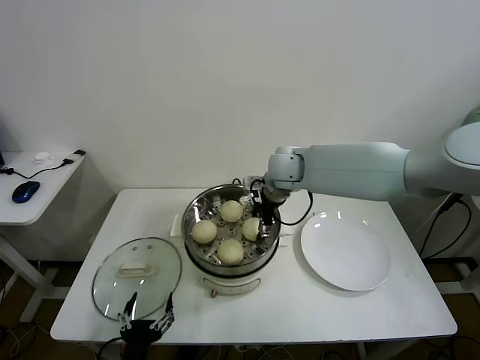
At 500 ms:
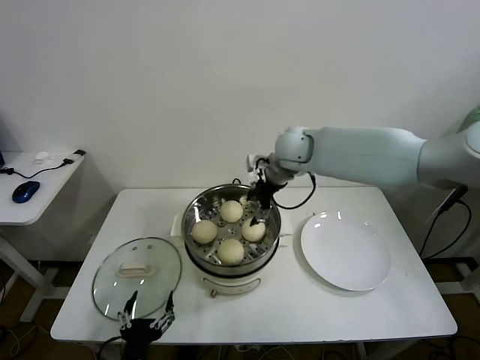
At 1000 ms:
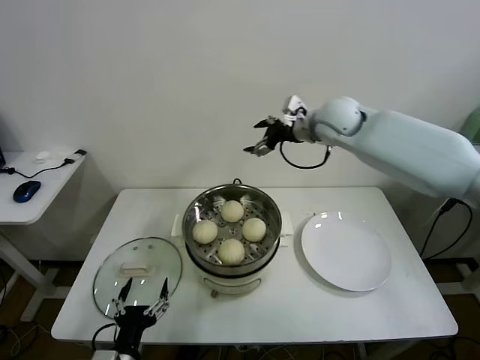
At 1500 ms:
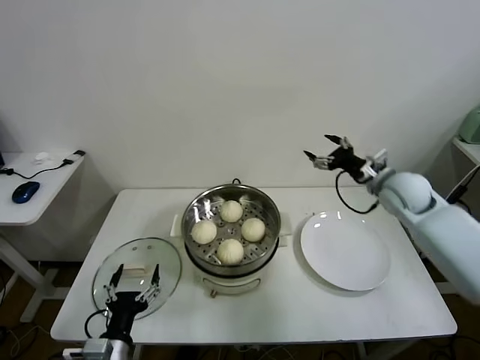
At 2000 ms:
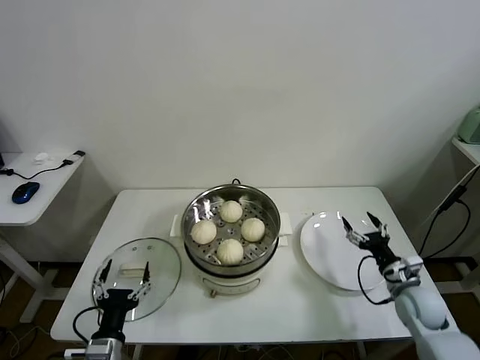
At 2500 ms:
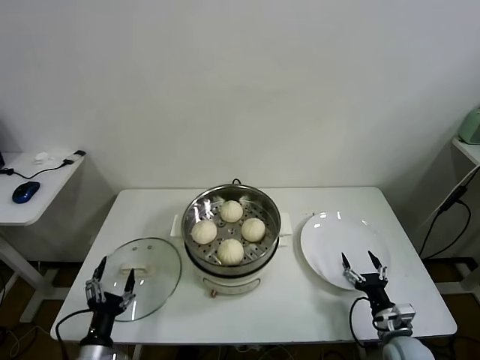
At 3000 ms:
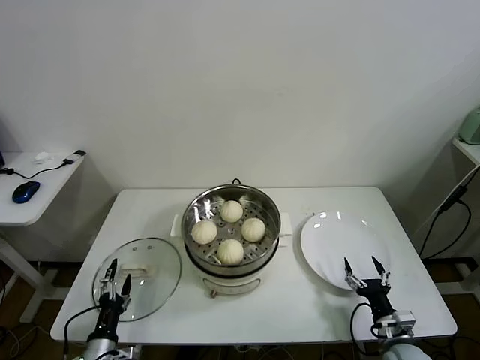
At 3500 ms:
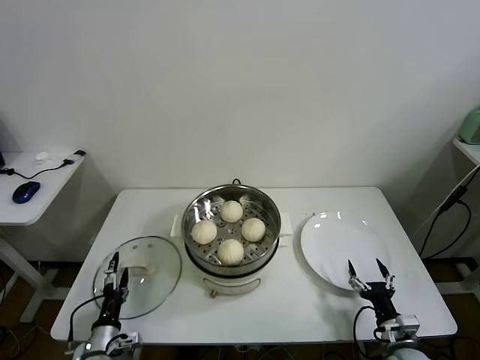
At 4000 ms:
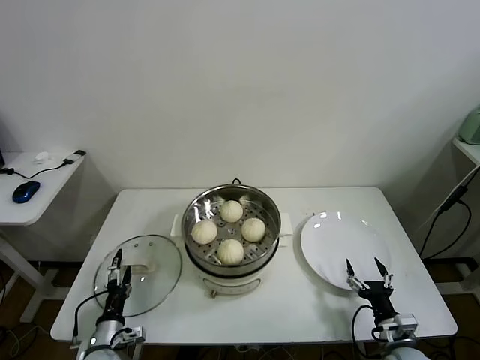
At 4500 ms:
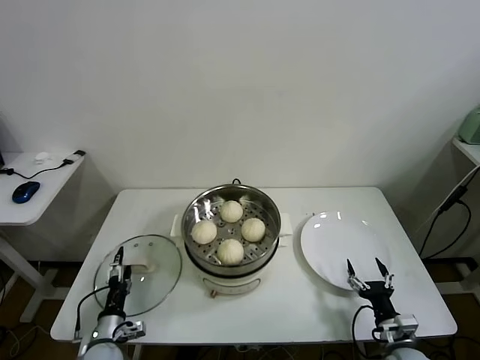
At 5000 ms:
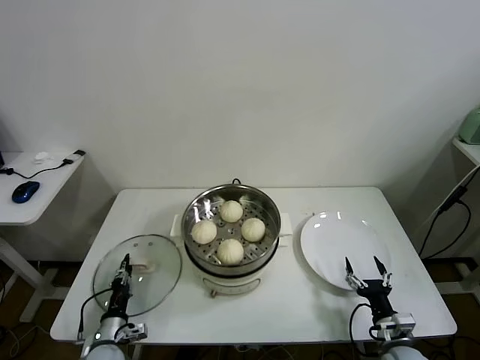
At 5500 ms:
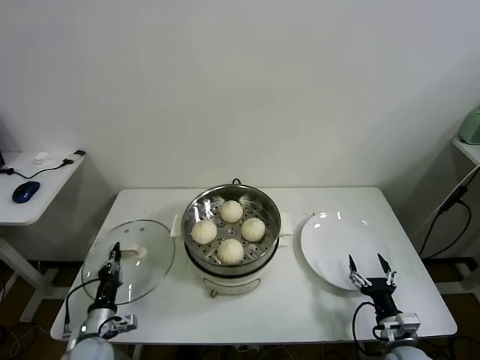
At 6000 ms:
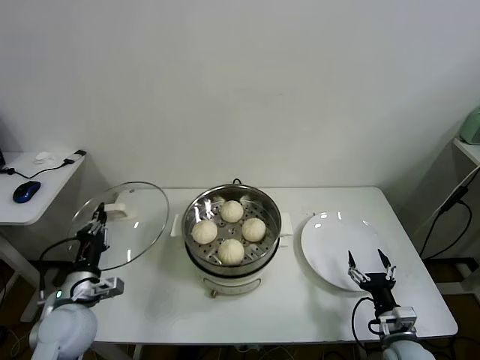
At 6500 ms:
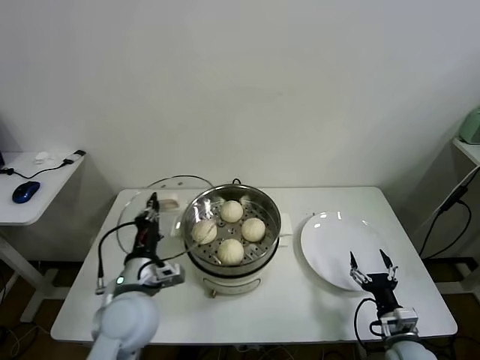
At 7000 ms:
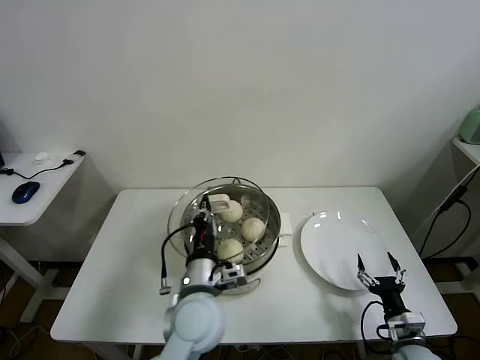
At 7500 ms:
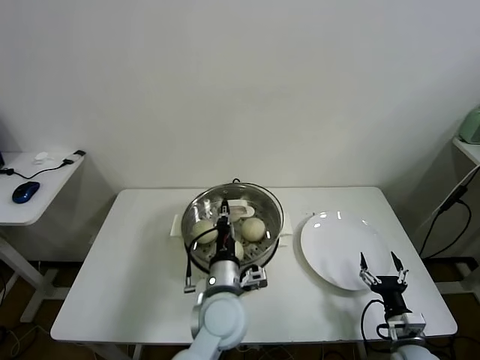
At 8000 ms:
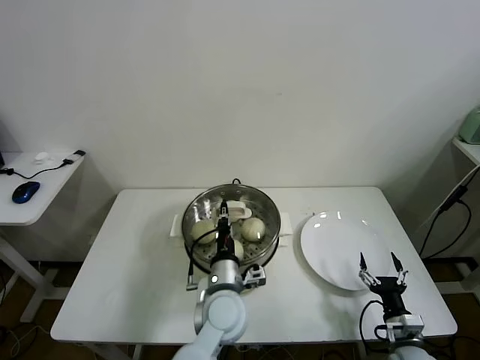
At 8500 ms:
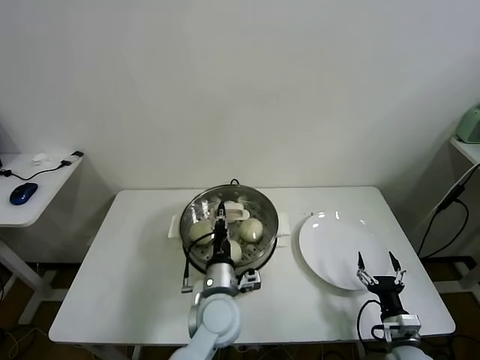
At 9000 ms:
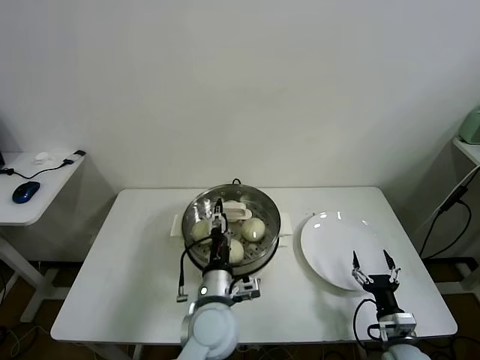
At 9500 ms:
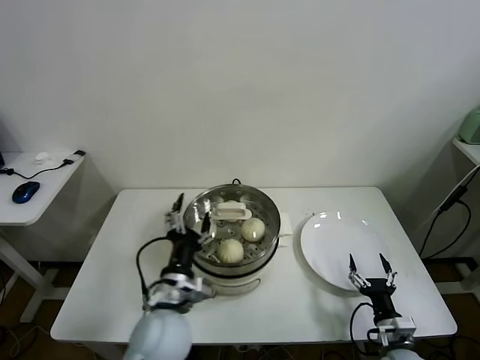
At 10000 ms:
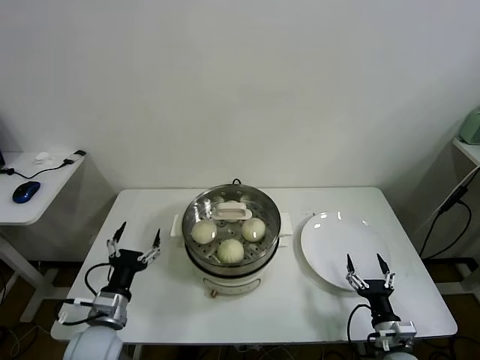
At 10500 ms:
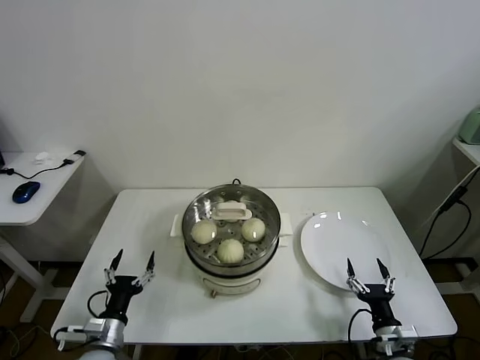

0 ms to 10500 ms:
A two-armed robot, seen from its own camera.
Task of the whole recording: take steamed baozi put them in steamer.
Step, 500 ms to 5000 ms: Grasp the pot lid with left gripper.
Step, 5500 ms to 9000 ms: Place the pot lid on the steamer with left gripper.
0 ms to 2000 ms: The right gripper shifts roughly 40 cm to the right, downward and backward, and opens its fingers. The left gripper goes approximately 5 cm to the left.
2000 ms to 4000 ms: The right gripper is displaced backward and downward by some 15 cm, while the left gripper goes roughly 15 cm downward, forward and to the left.
4000 ms to 6500 ms: The left gripper goes roughly 25 cm upward and to the right, and closes.
6500 ms to 8500 ms: The left gripper heads to the right, covering roughly 15 cm.
8500 ms to 10500 ms: The left gripper shifts some 25 cm to the left, and opens.

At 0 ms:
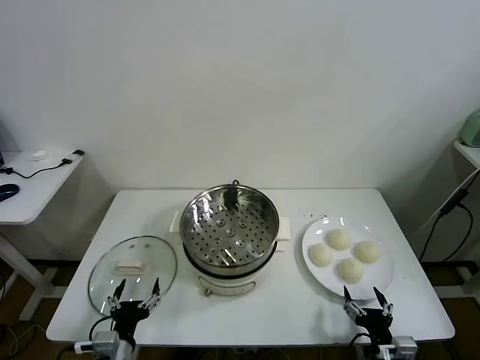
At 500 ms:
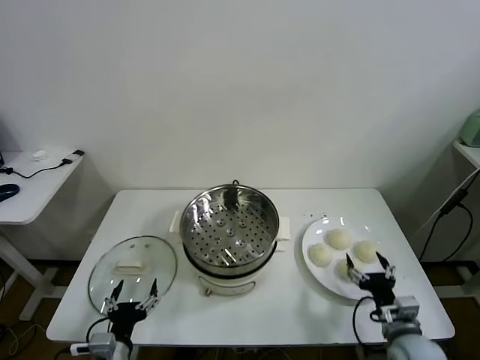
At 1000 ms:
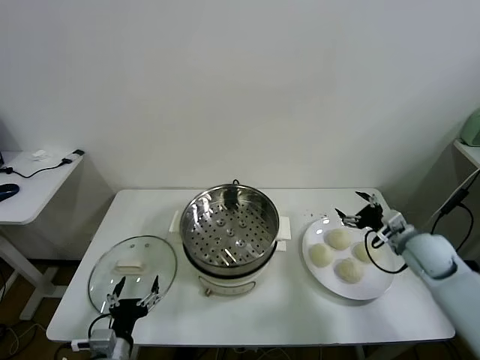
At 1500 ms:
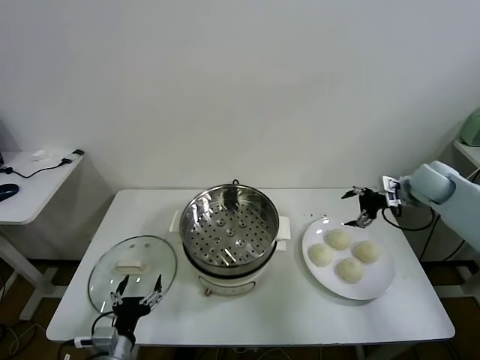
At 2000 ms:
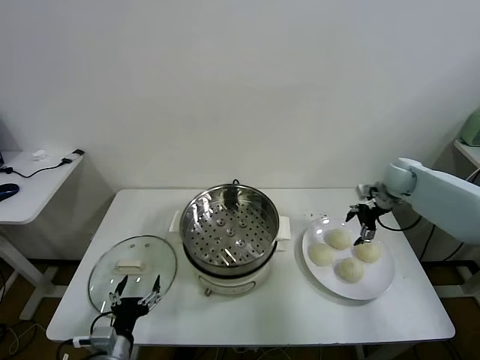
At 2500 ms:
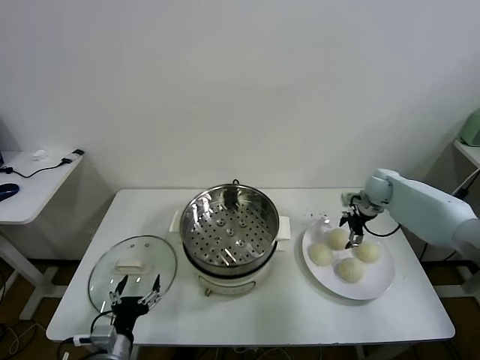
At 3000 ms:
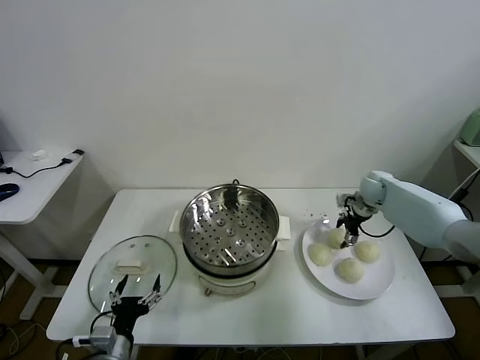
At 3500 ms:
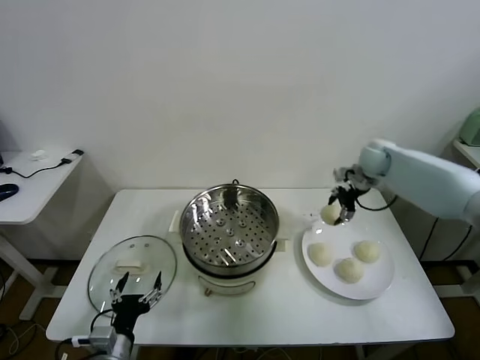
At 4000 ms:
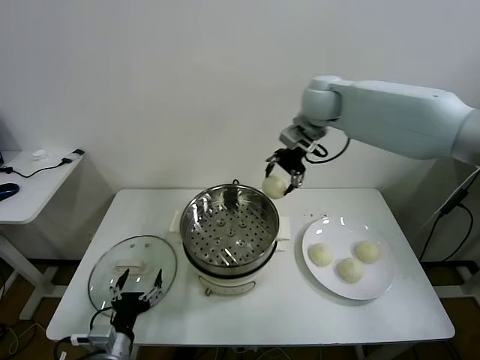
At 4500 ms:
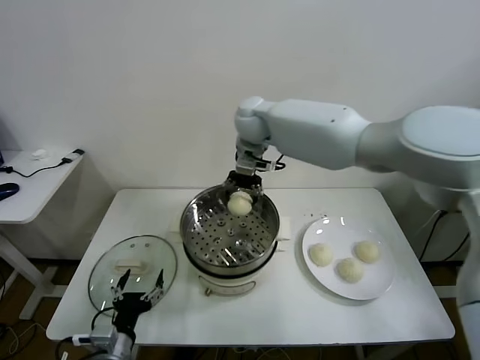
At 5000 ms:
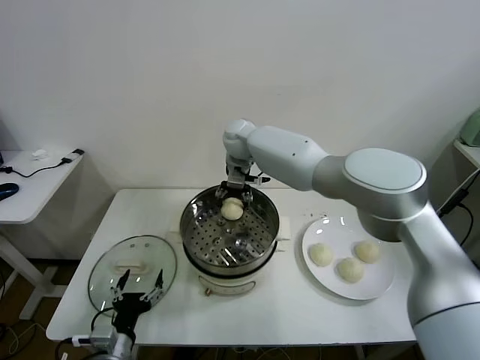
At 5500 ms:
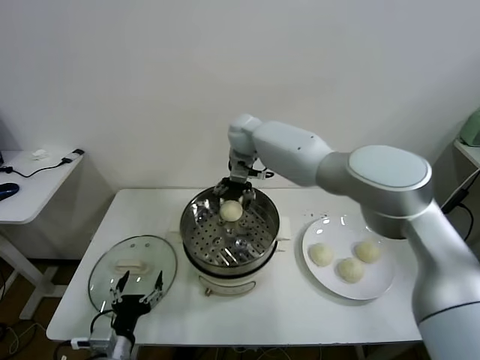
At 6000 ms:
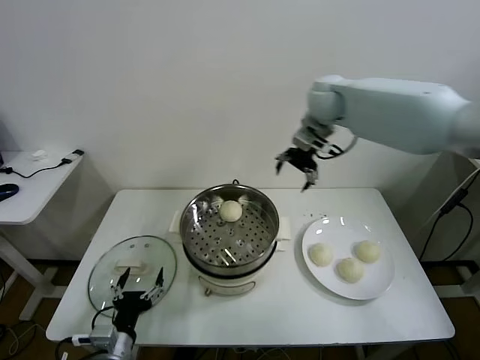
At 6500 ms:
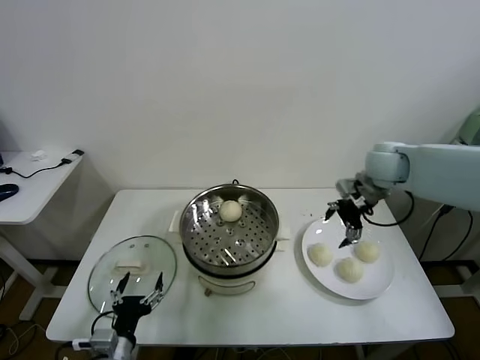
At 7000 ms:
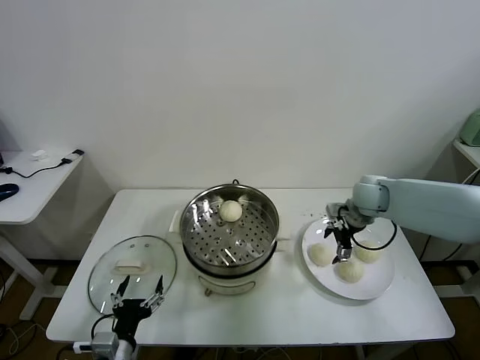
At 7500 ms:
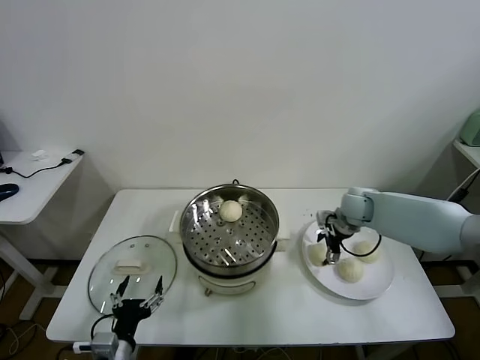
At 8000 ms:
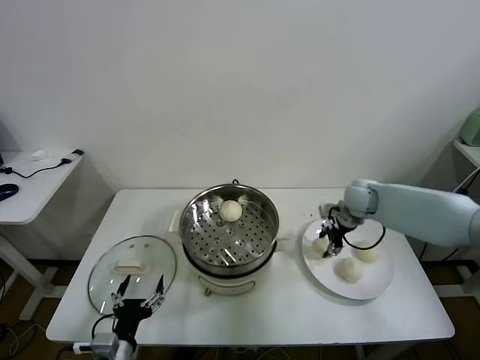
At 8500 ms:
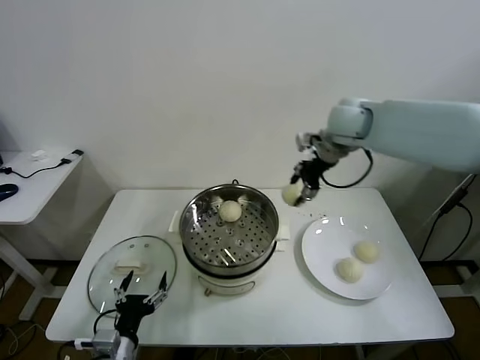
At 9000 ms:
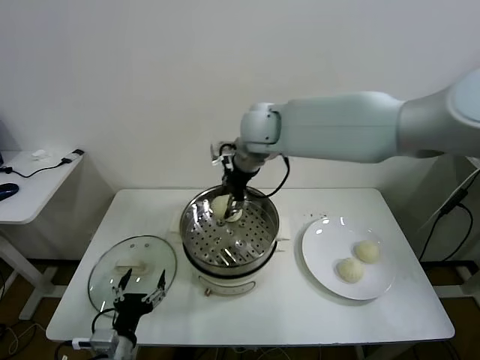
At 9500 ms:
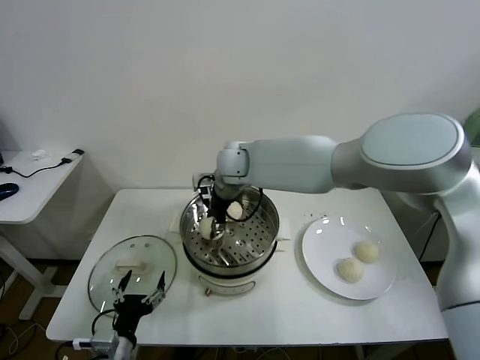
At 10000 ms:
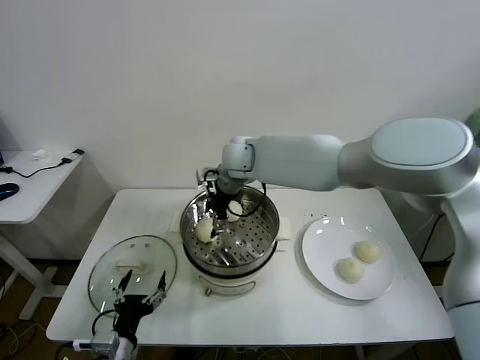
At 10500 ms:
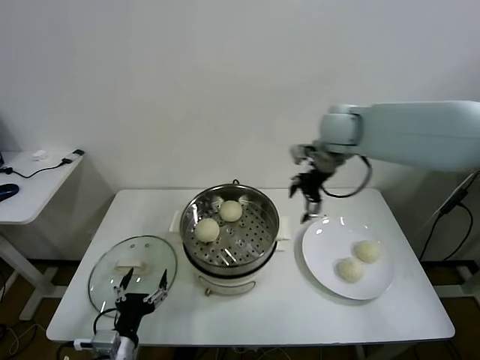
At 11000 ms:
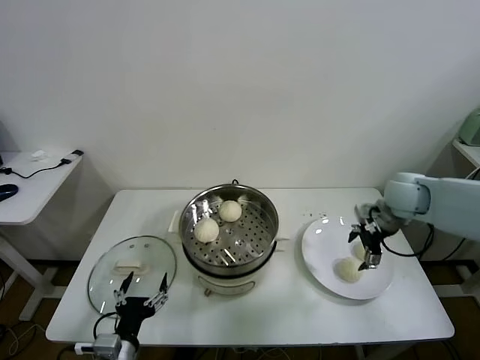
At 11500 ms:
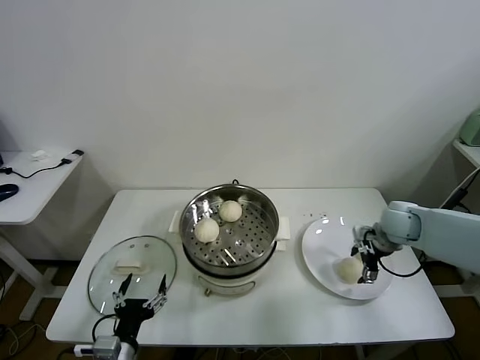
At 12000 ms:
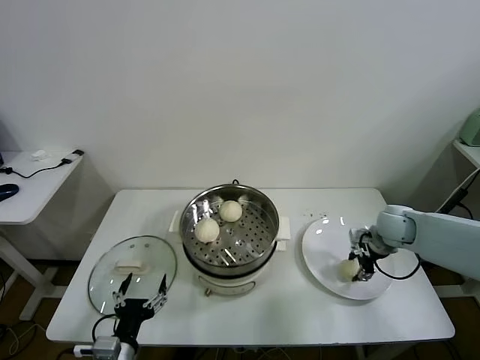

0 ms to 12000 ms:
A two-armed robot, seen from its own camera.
Task of the whole recording: take steamed baozi put them in steamer.
Step, 0 ms to 2500 ms: Grasp the baozi in the plate with right gripper.
Step, 3000 ms to 5000 ms: Place the baozi on the steamer with right gripper.
Step, 5500 ms to 7500 ms: Grasp the baozi in the plate with right gripper.
Step, 8000 ms to 9500 ms: Place the baozi on the steamer with right gripper.
Step, 10000 ms to 12000 ms: Grasp the baozi in the plate with right gripper.
2000 ms to 4000 ms: The right gripper heads to the left and upward, covering some 35 cm, and closes.
4000 ms to 6000 ms: The right gripper heads to the right, covering roughly 10 cm, and opens.
6000 ms to 8000 ms: The right gripper moves downward, about 20 cm, and closes up.
8000 ms to 10000 ms: The right gripper moves to the left, roughly 30 cm, and opens up.
10000 ms to 12000 ms: The right gripper shifts roughly 40 cm to the right and downward, and closes.

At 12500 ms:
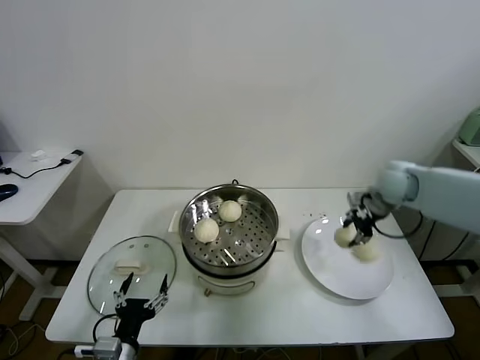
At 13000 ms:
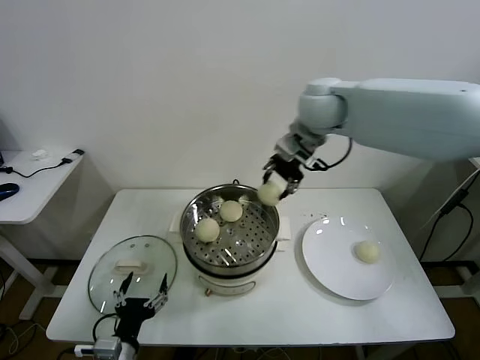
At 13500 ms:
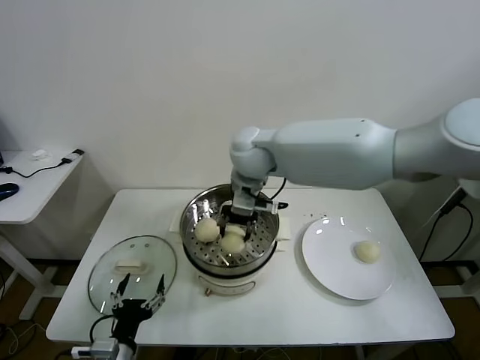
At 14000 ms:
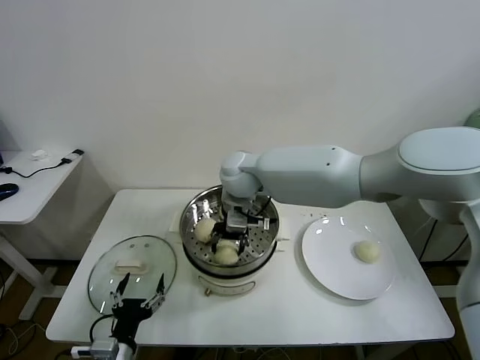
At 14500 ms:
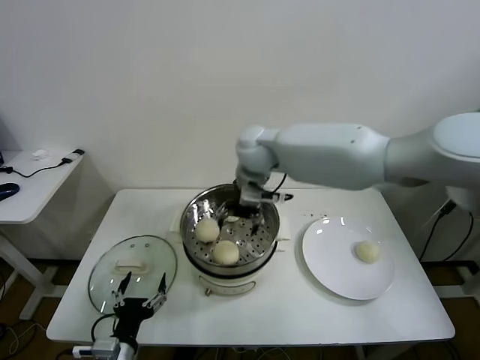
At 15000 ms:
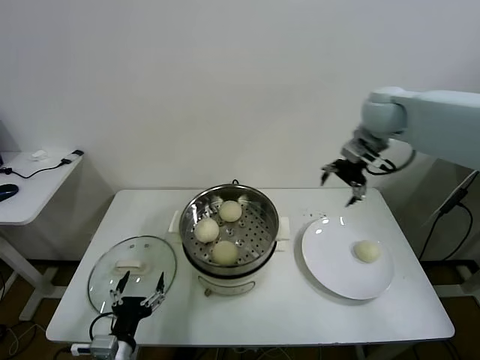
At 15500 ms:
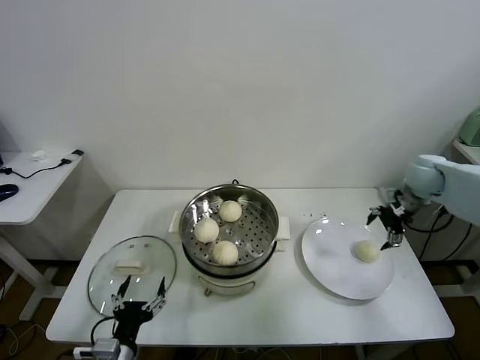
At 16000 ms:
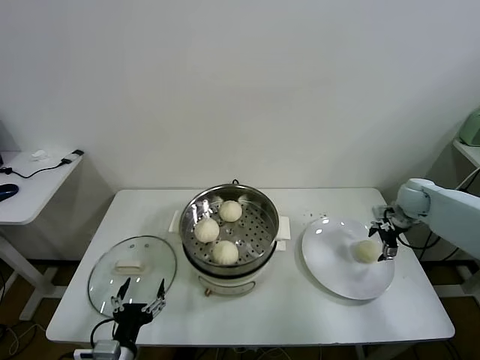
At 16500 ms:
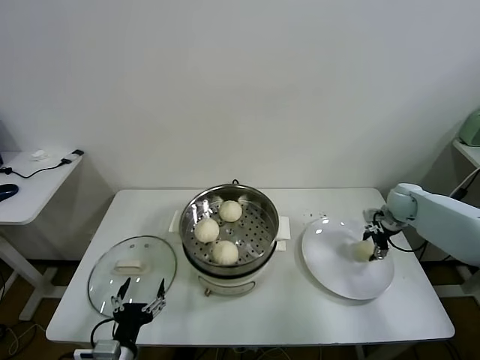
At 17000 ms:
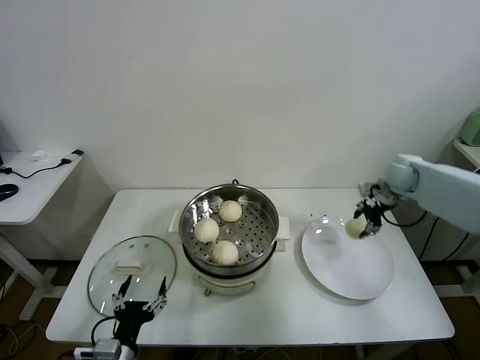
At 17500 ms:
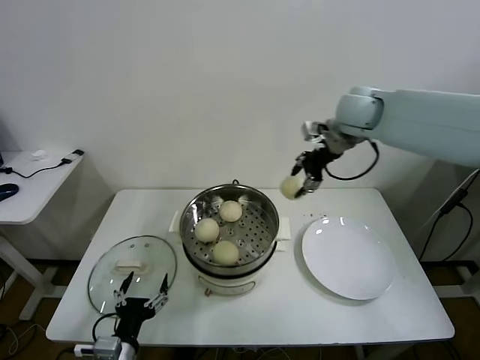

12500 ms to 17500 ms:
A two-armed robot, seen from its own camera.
Task of the whole recording: take steamed baozi put them in steamer.
Step, 12500 ms to 14000 ms: Place the baozi on the steamer with right gripper.
Step, 14500 ms to 16500 ms: Grasp the baozi in the plate with right gripper.
12500 ms to 15000 ms: The right gripper moves upward, some 10 cm, travels to the left and back again, about 35 cm each way, and opens up.
15000 ms to 17500 ms: The right gripper heads to the left, covering about 10 cm, travels downward and back again, some 25 cm each way, and closes.
